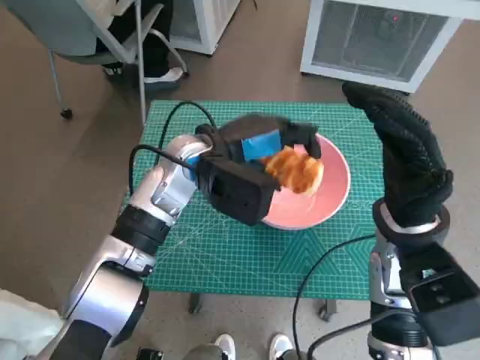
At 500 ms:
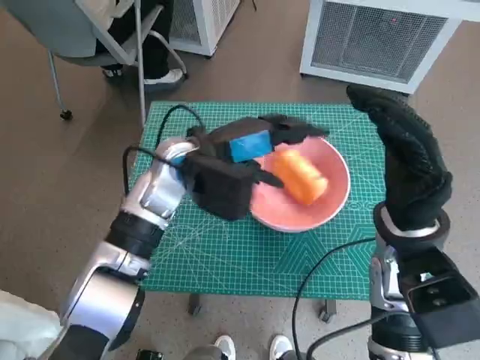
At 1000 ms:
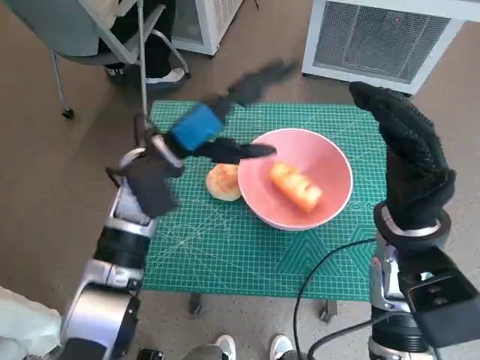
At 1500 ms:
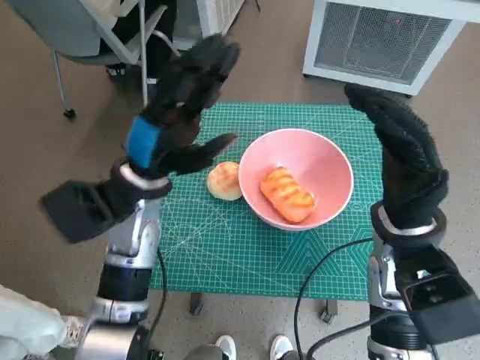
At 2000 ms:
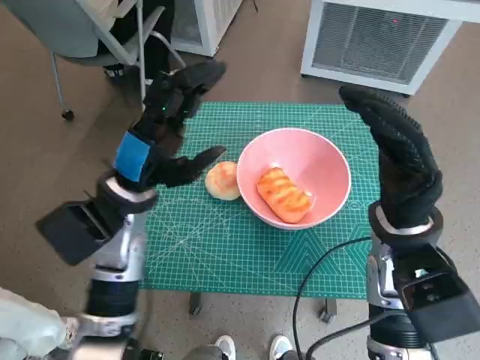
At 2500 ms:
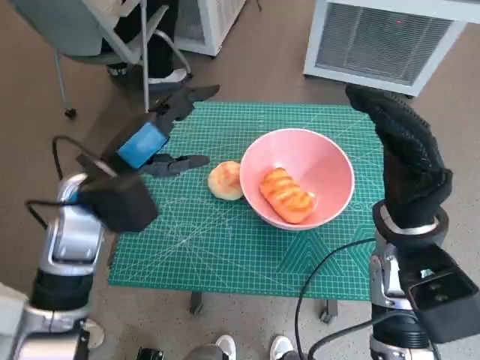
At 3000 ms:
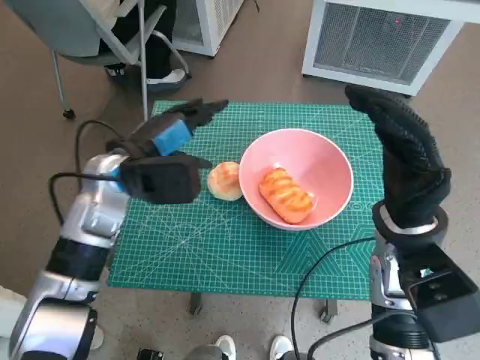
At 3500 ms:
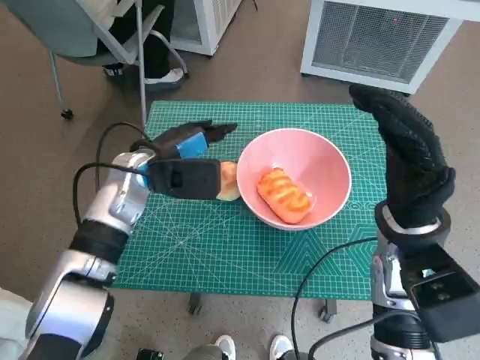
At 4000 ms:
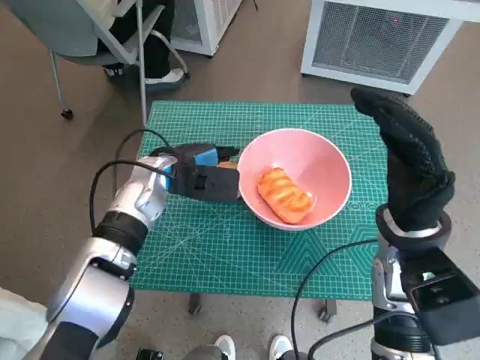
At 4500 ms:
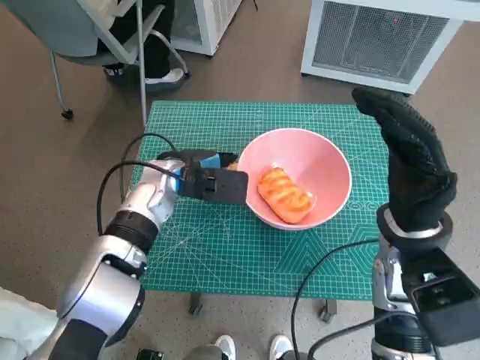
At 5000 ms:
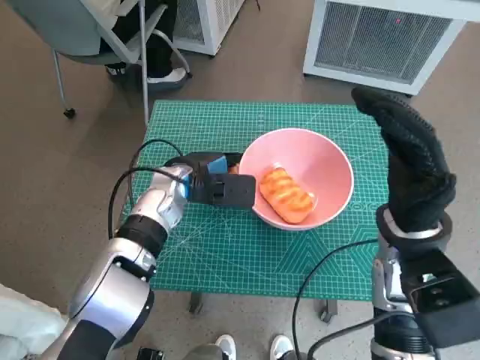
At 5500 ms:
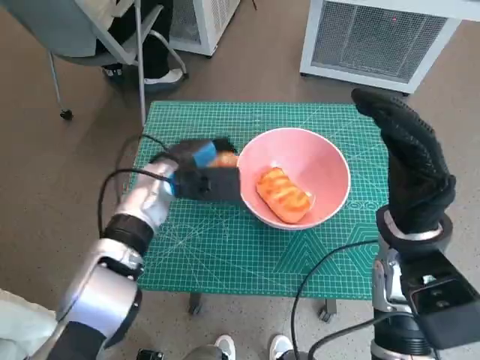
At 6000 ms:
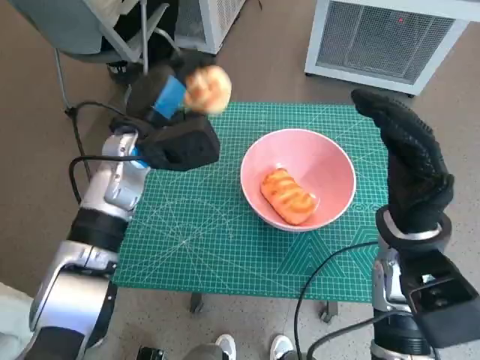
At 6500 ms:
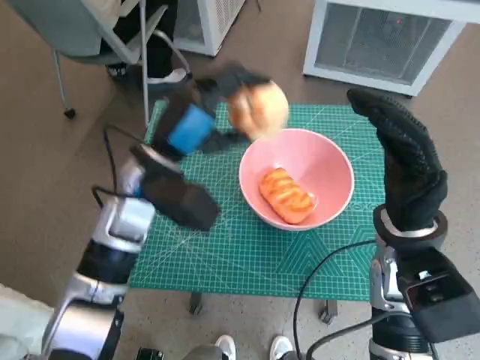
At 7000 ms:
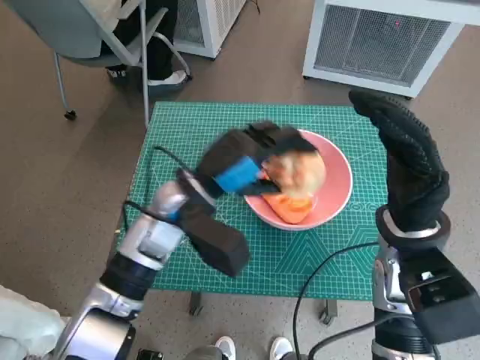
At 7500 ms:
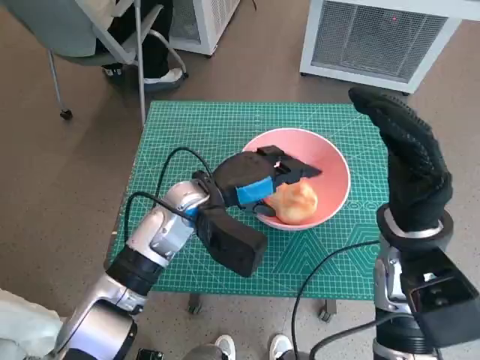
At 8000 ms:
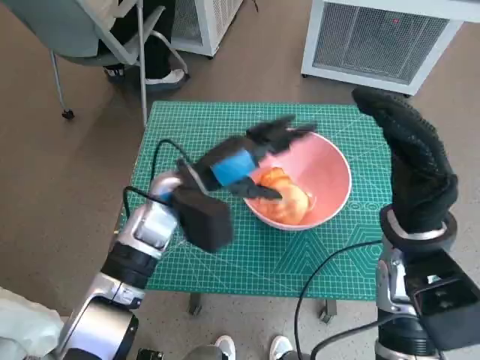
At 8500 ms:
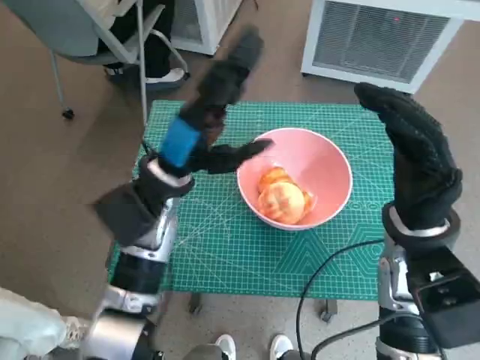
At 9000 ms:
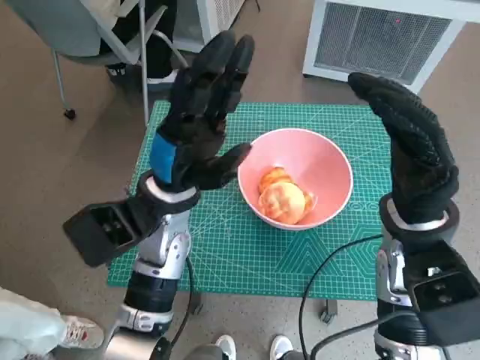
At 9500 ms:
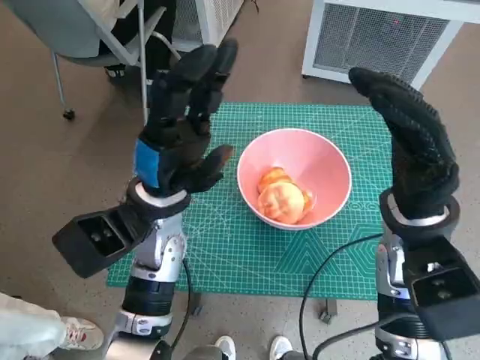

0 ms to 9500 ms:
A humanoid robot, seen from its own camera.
Task of the whole recording: Push the bowl to the center of the table and put the bread into the bowl.
Step, 1500 ms to 4500 ms: Grasp the round bread with left hand.
Step, 5000 ms to 8000 ms: Place the round bread in pink bowl with left hand.
0 ms to 2000 ms: The left hand moves to the left and backward, approximately 10 cm.
2000 ms to 4000 ms: The left hand travels forward by about 5 cm.
4000 ms to 5500 ms: The hands move only a little.
5500 ms to 7500 ms: The left hand goes some 5 cm to the right.

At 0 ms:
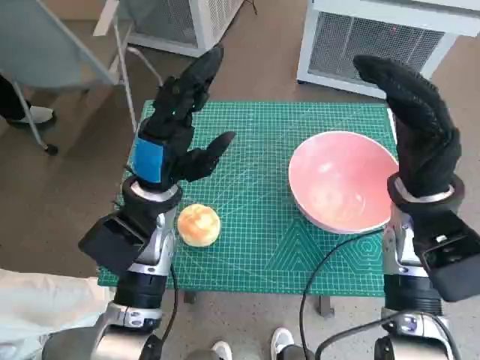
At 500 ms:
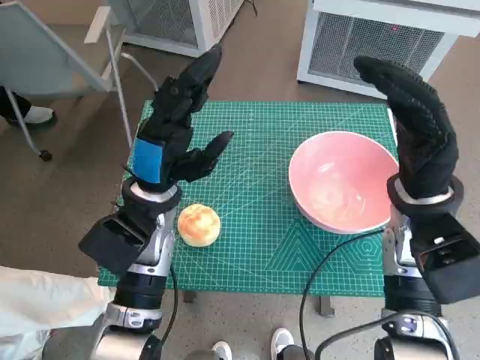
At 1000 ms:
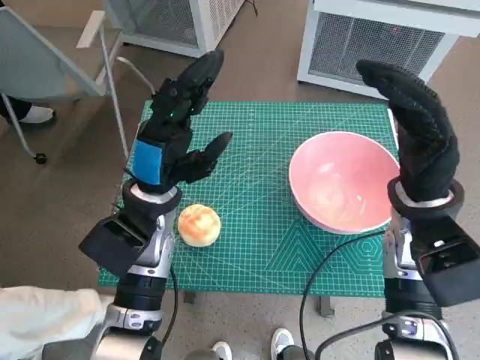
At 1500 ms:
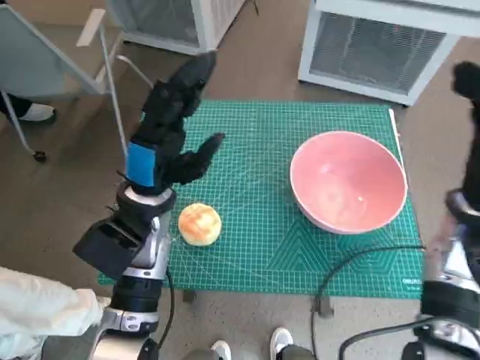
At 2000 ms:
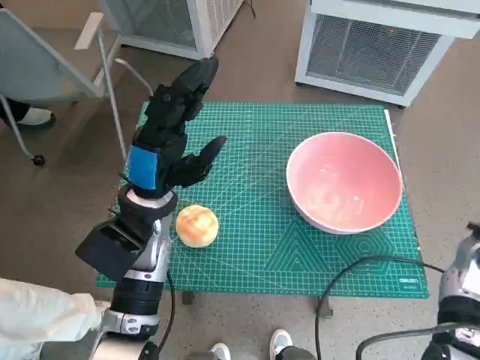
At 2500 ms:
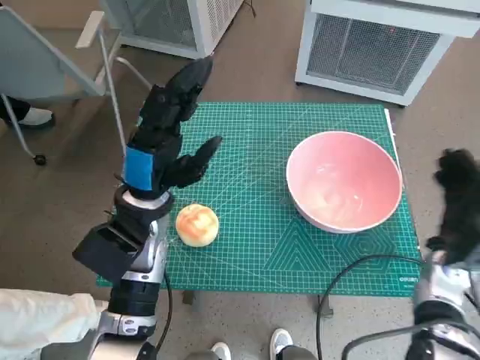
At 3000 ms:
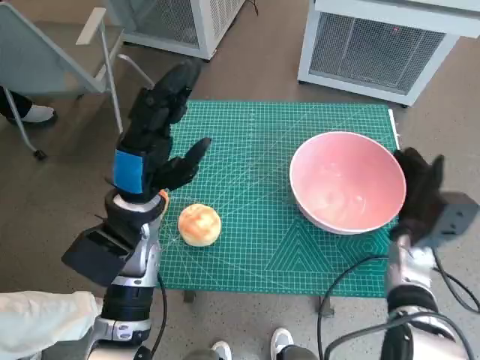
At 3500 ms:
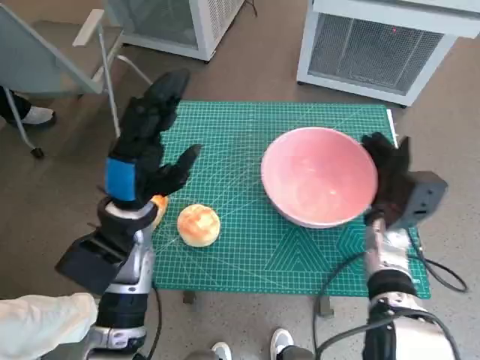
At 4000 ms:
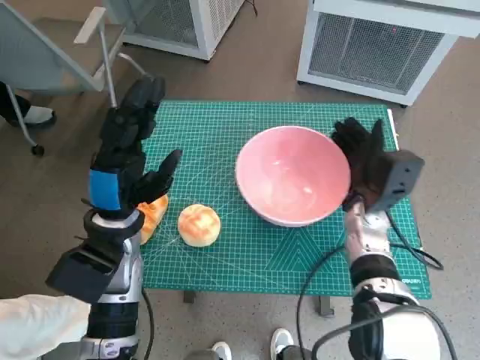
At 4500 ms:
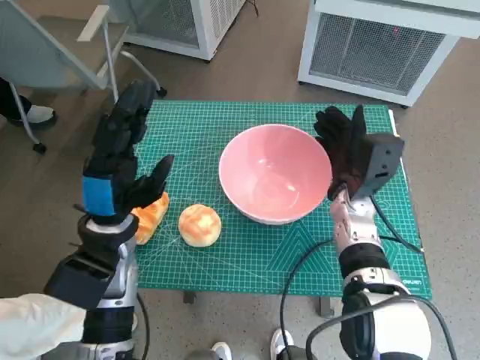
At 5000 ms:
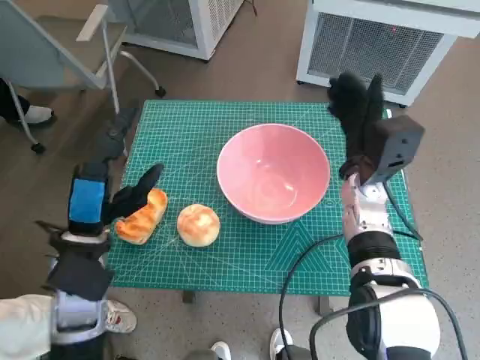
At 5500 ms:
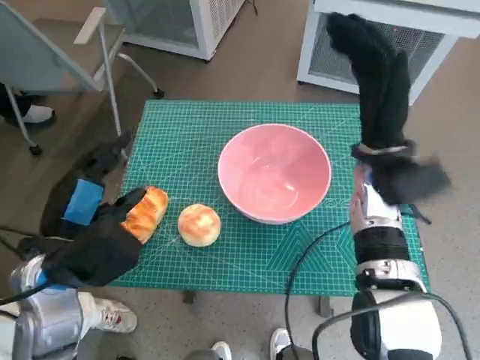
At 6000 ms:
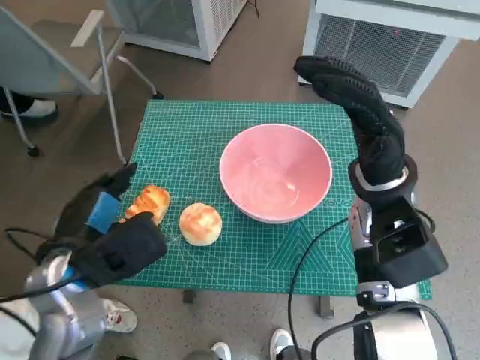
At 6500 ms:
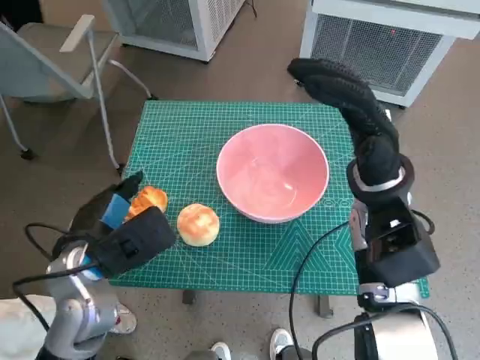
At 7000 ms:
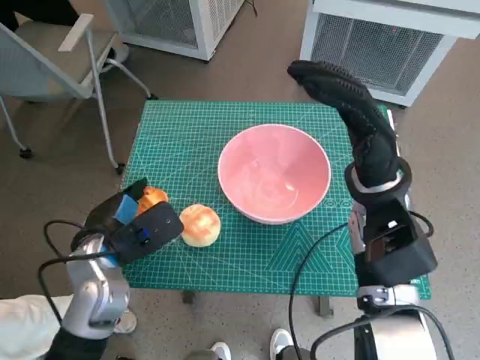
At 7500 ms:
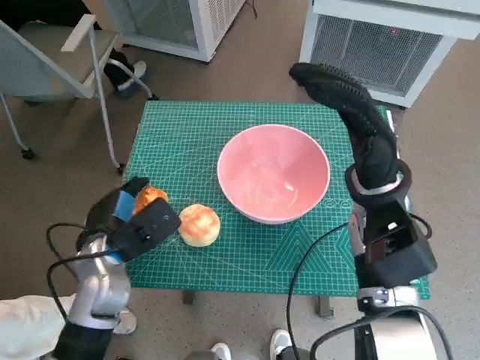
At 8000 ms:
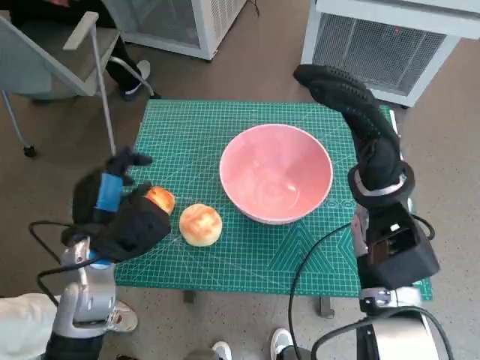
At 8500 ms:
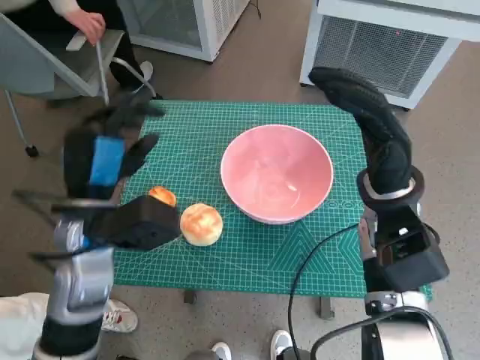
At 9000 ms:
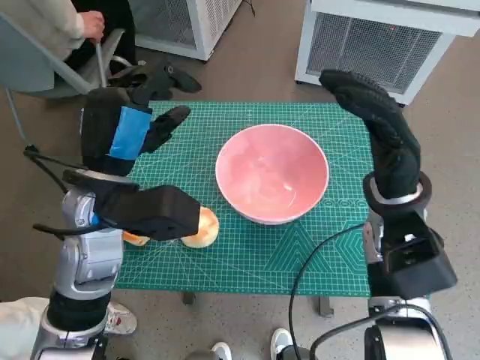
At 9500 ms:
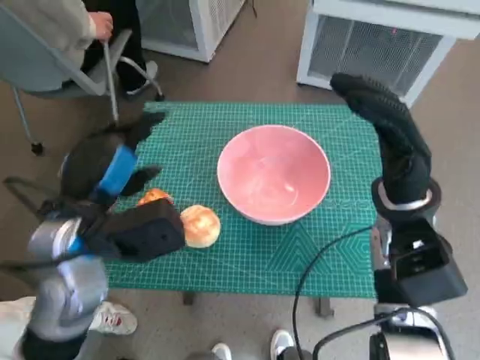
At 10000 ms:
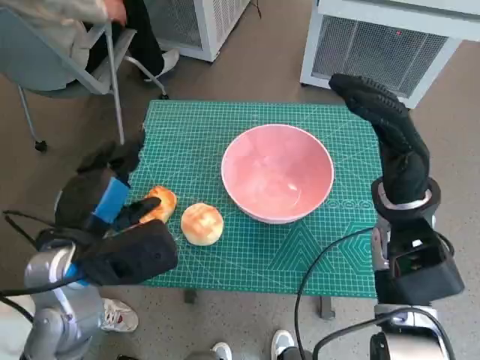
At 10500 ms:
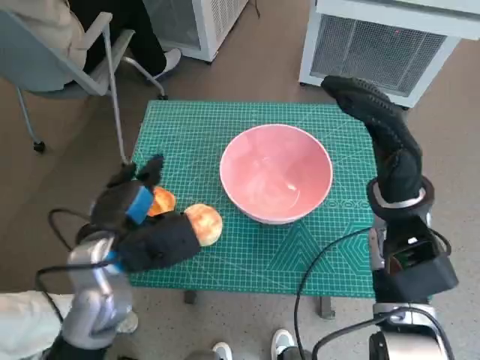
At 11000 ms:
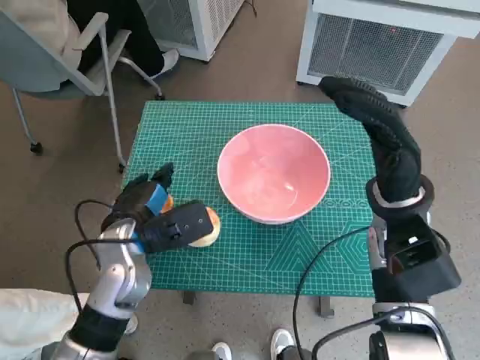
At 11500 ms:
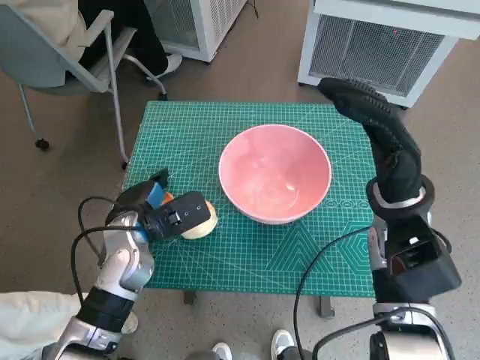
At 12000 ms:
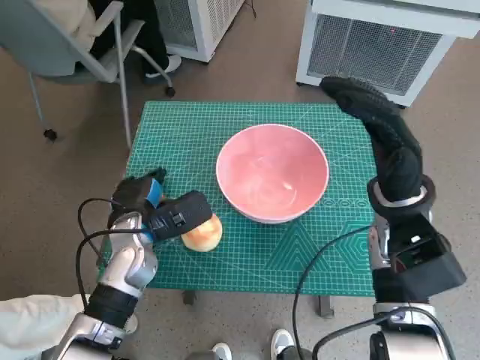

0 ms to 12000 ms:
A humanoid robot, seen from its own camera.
Task of the whole recording: Push the bowl to the center of the table and put the bread into the bowl.
Step, 0 ms to 4500 ms: Move the pink bowl to the center of table with right hand.
Step, 5000 ms to 11500 ms: Grasp the long bread with left hand.
2000 ms to 4000 ms: The right hand is displaced to the left and forward by approximately 15 cm.
4000 ms to 6000 ms: The left hand is displaced backward by approximately 5 cm, while the right hand goes roughly 10 cm upward.
6000 ms to 8000 ms: The left hand changes place by roughly 5 cm.
8000 ms to 10000 ms: The left hand travels upward by about 5 cm.
10000 ms to 12000 ms: The left hand shifts roughly 15 cm downward and forward.

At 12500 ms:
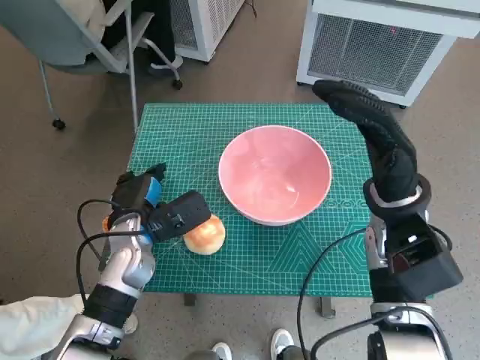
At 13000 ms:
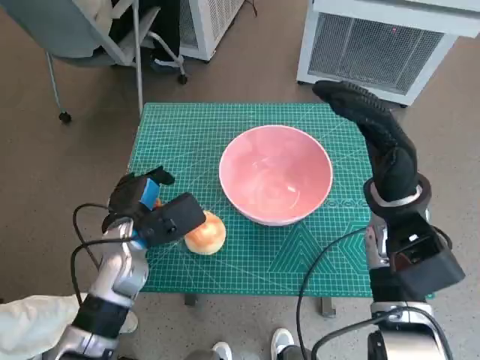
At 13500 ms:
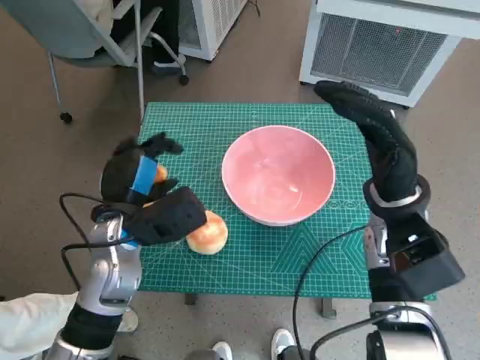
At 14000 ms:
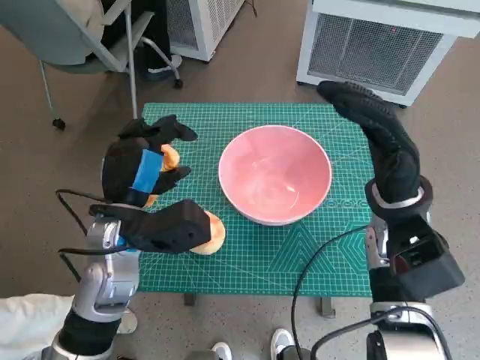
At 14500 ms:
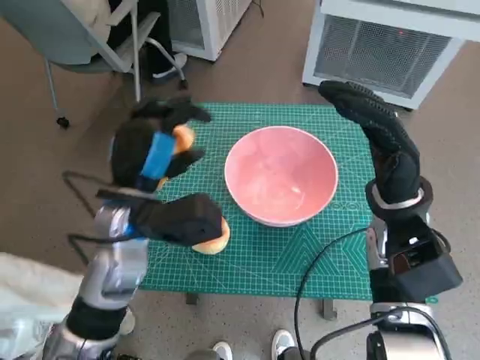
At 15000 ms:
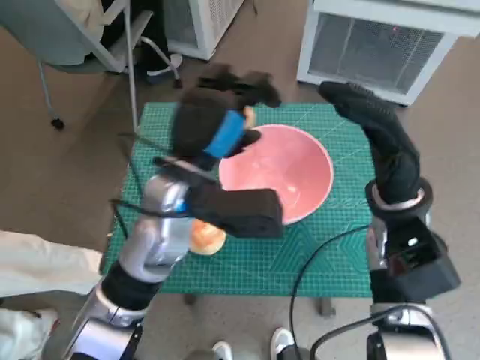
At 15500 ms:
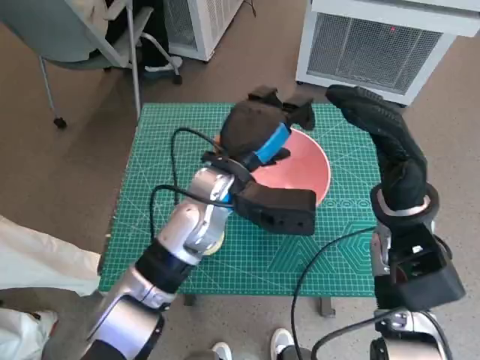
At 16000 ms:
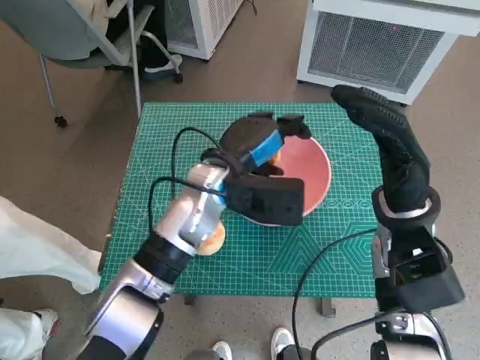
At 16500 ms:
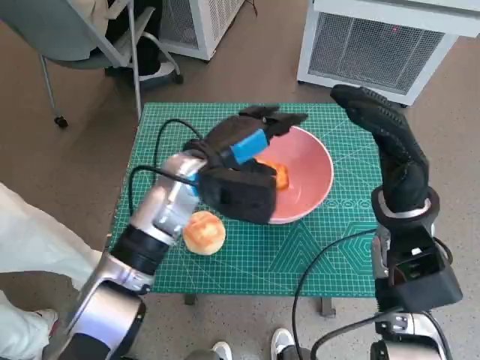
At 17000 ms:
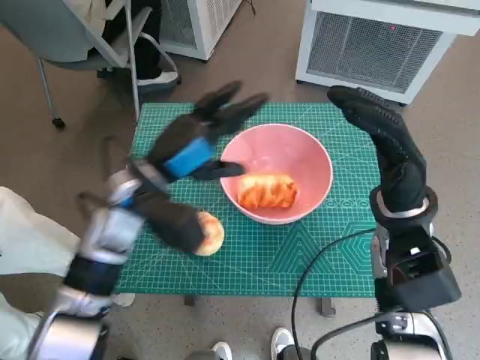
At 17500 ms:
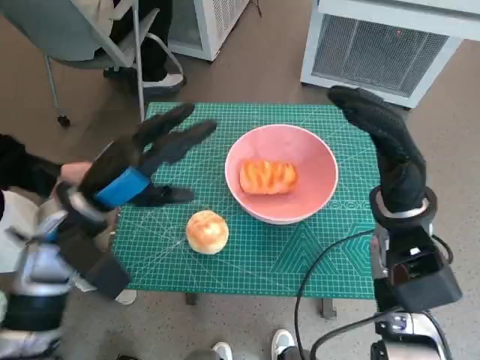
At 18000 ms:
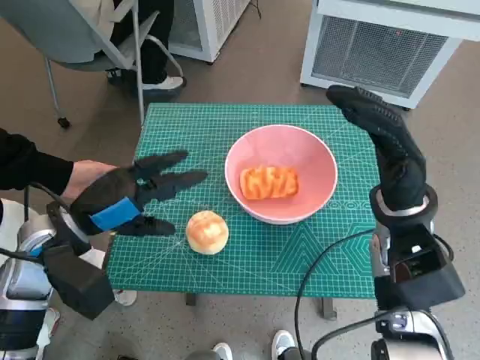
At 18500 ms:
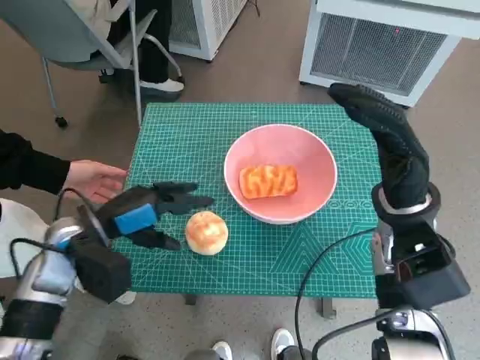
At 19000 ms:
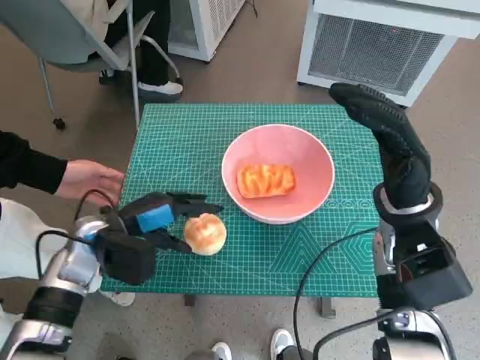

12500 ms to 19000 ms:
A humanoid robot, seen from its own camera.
Task of the whole recording: Push the bowl to the center of the table and put the bread into the bowl.
Step, 12500 ms to 16500 ms: Place the long bread in pink bowl with left hand.
12500 ms to 14500 ms: The left hand goes roughly 10 cm upward.
14500 ms to 17000 ms: The left hand travels to the right and back again, roughly 10 cm each way.
17000 ms to 19000 ms: The left hand goes roughly 10 cm to the left and downward.
